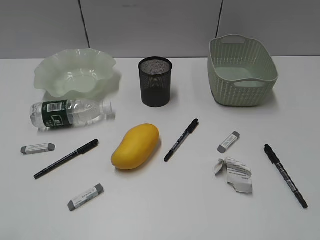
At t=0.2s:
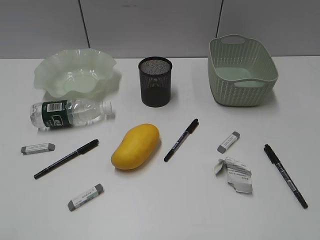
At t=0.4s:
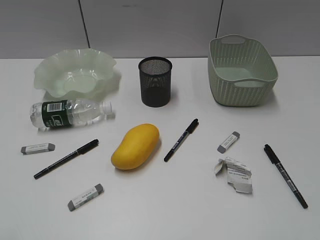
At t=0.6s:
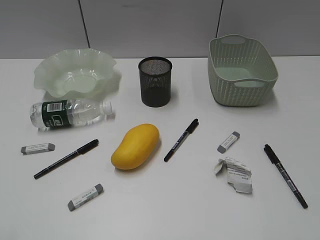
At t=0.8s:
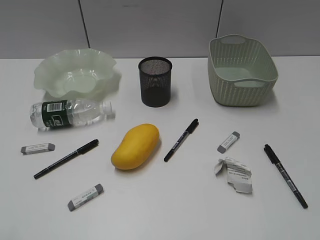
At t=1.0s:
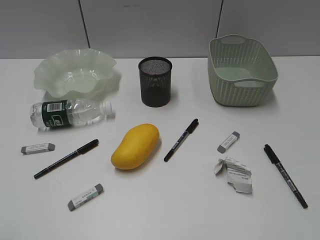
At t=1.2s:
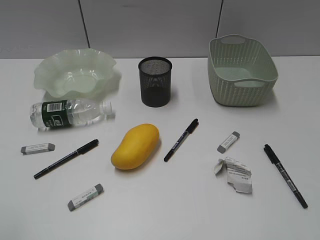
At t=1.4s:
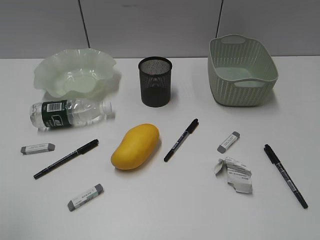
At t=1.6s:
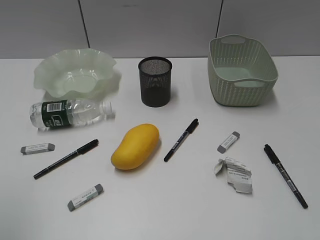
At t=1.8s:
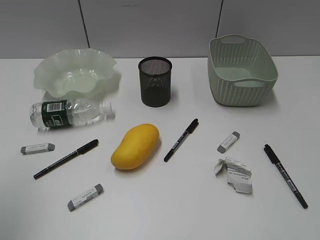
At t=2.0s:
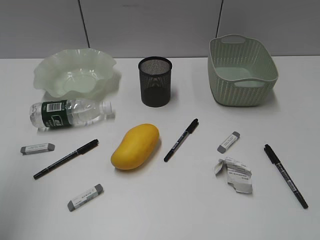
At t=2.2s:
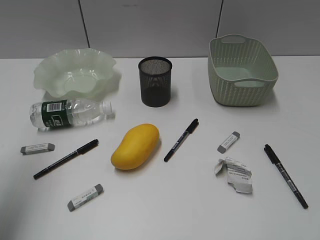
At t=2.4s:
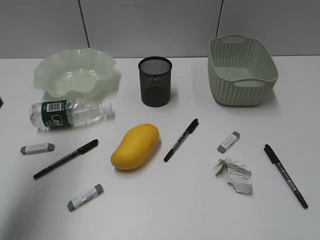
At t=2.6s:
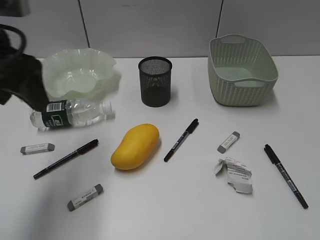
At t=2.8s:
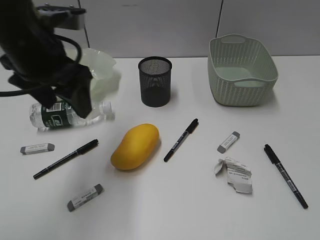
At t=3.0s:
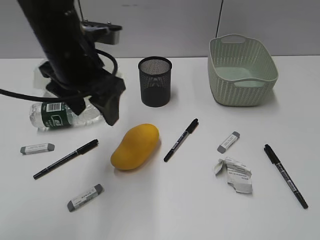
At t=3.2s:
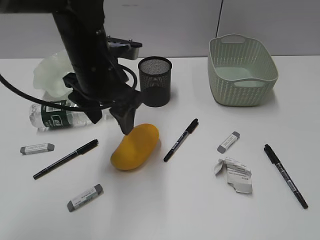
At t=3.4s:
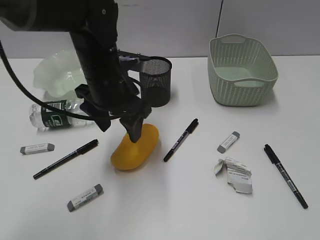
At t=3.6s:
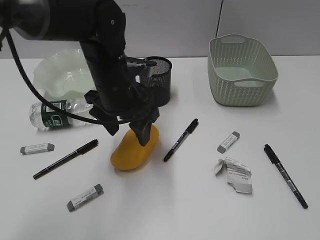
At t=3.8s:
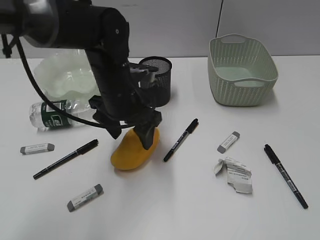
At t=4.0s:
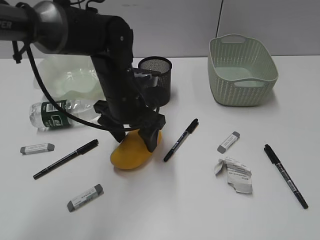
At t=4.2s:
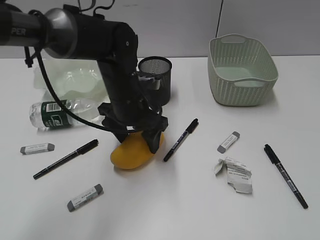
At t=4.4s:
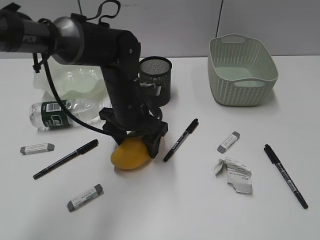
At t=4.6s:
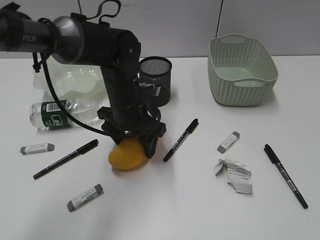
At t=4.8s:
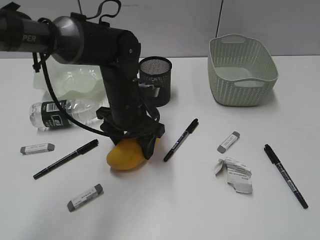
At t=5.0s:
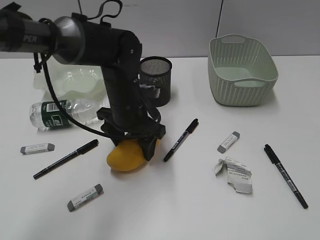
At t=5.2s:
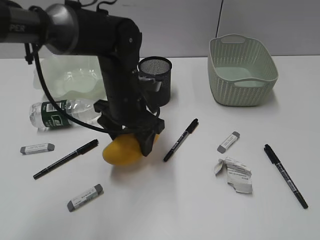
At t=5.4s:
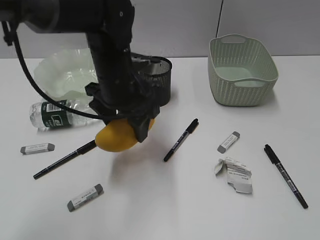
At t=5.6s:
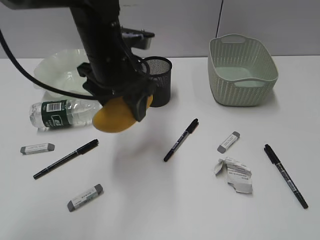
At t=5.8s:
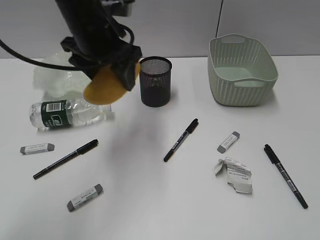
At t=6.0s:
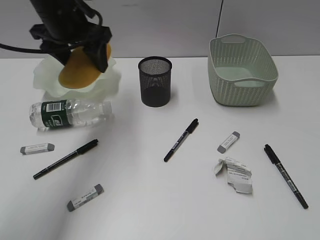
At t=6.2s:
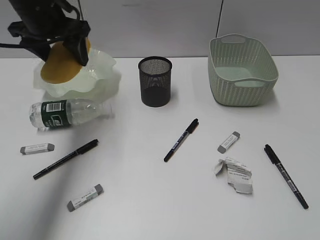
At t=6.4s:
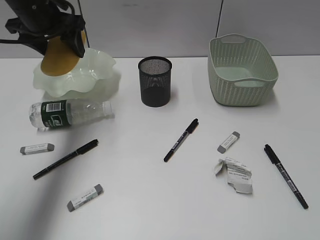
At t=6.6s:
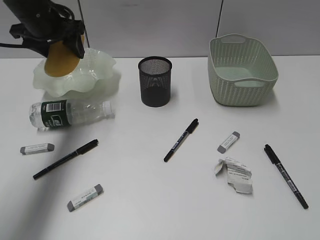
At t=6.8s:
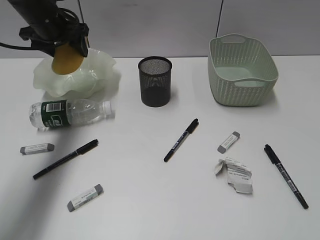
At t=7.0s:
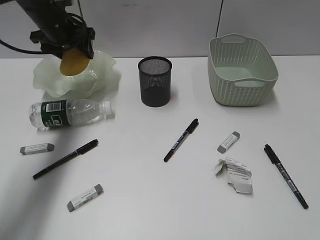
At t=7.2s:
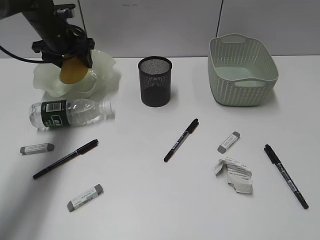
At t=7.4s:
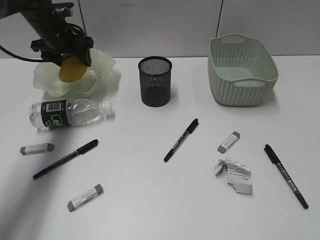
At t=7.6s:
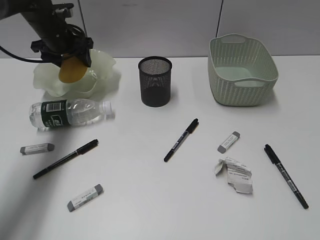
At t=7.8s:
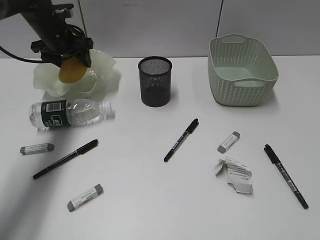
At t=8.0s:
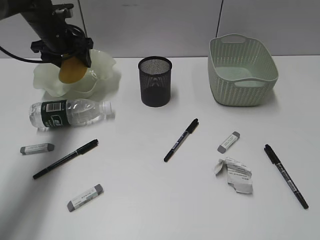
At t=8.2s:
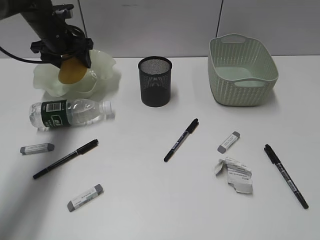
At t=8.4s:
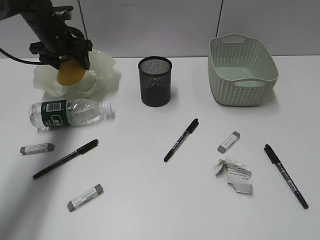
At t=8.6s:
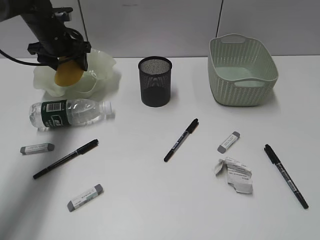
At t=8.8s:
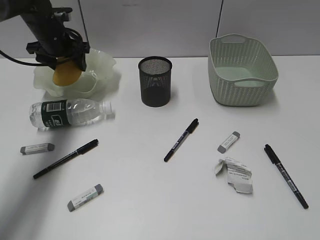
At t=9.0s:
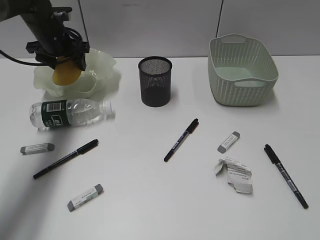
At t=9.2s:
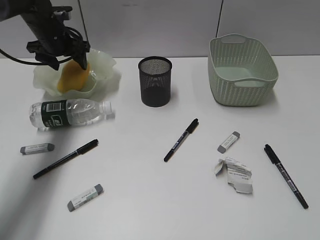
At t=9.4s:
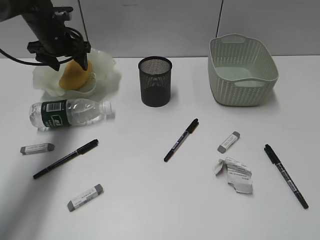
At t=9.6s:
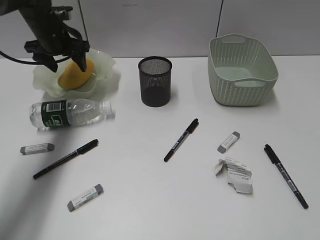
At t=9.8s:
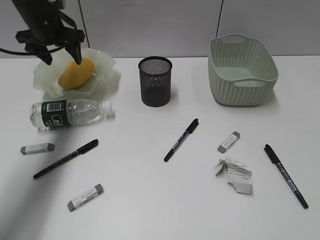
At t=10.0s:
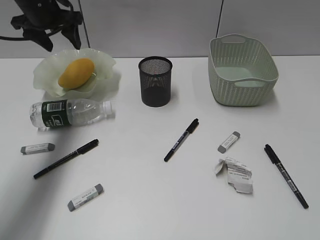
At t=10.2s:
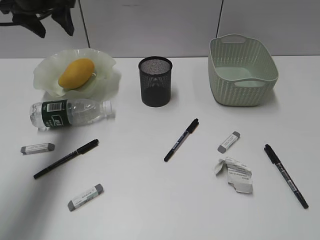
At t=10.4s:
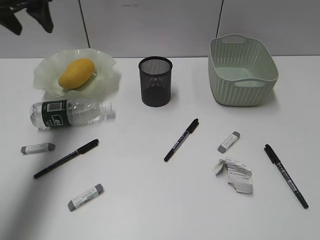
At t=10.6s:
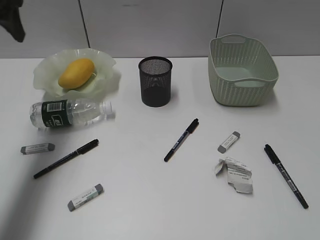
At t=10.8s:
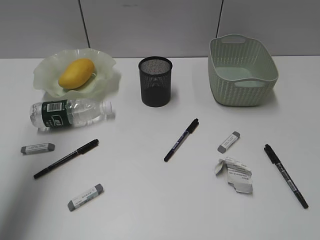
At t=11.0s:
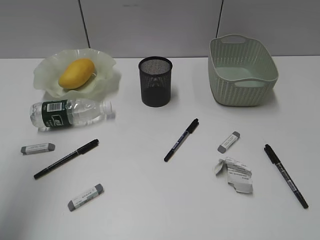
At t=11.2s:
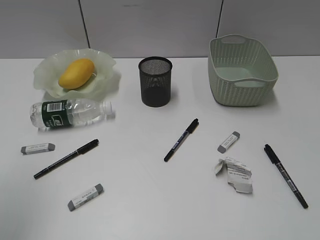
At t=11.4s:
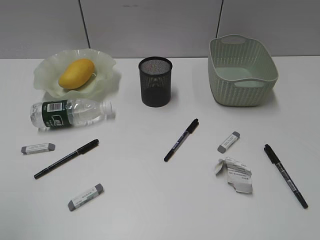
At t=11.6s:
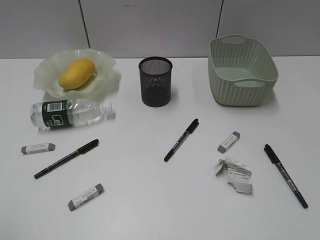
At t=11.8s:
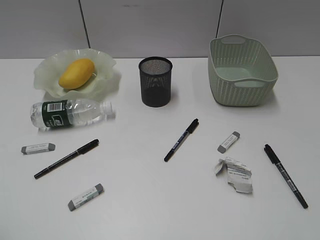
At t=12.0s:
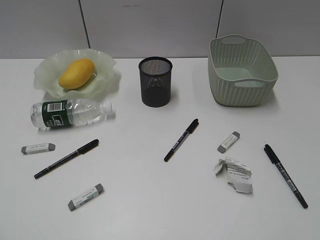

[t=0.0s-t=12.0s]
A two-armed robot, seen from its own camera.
Step, t=2.4s to t=4.8s: Grasp the mango with left gripper.
Step, t=5.0s to t=9.8s: Place the mango in the plate with left gripper.
t=1.6s to t=3.0s: The left gripper moves forward and to the right, roughly 30 cm.
t=3.0s to t=4.4s: The left gripper shifts some 15 cm downward and to the right.
t=4.4s to t=6.0s: The left gripper is displaced upward and to the left by about 15 cm.
t=6.0s to t=7.6s: The left gripper travels forward, to the left and downward by roughly 20 cm.
t=7.6s to t=9.0s: Neither gripper changes place.
t=9.0s to t=10.4s: The left gripper shifts some 15 cm upward and backward.
t=10.4s to t=12.0s: The left gripper heads backward, covering approximately 40 cm.

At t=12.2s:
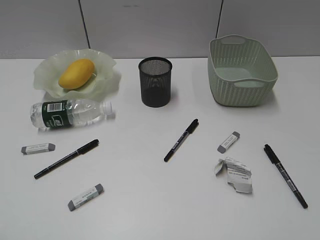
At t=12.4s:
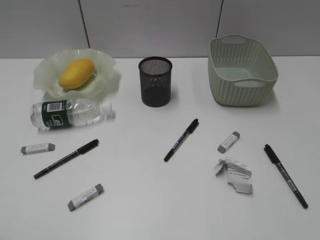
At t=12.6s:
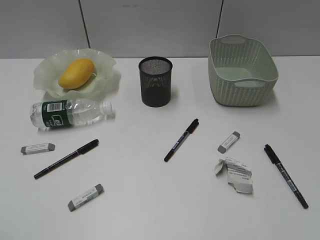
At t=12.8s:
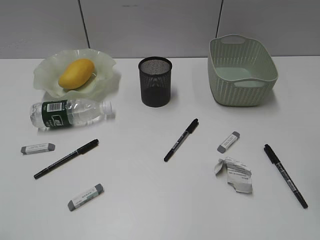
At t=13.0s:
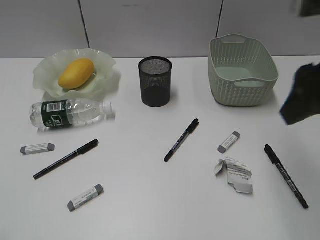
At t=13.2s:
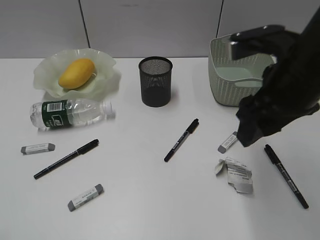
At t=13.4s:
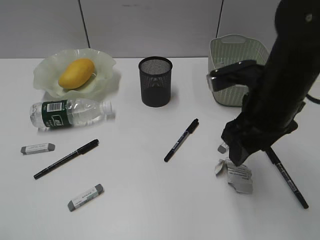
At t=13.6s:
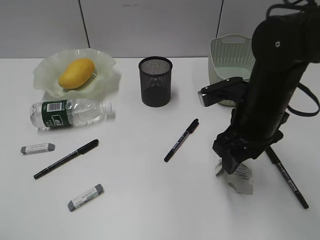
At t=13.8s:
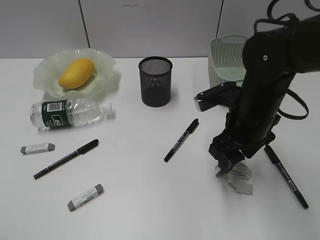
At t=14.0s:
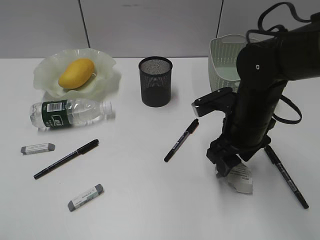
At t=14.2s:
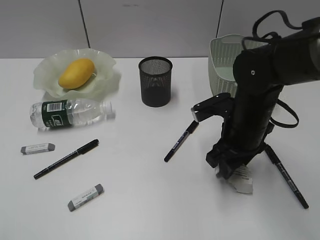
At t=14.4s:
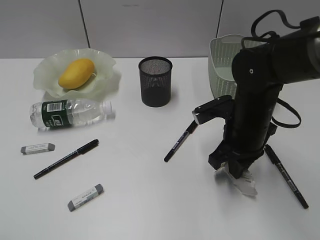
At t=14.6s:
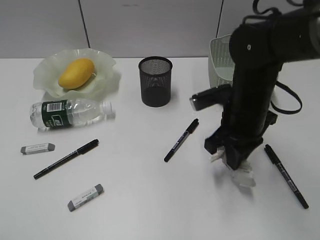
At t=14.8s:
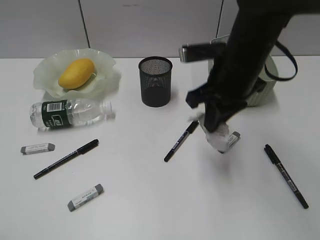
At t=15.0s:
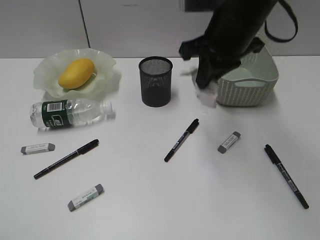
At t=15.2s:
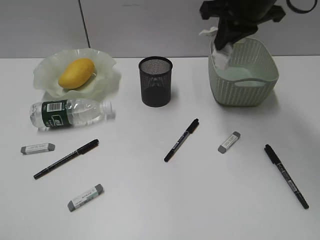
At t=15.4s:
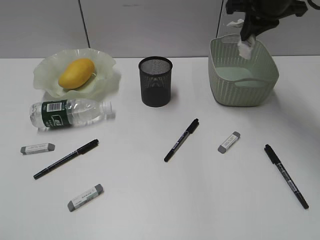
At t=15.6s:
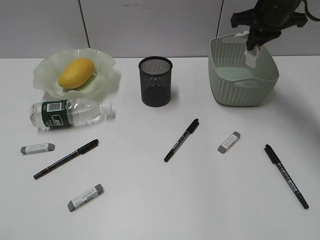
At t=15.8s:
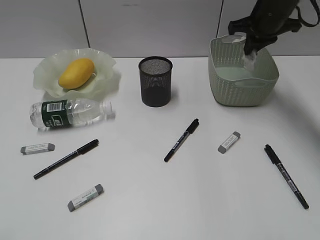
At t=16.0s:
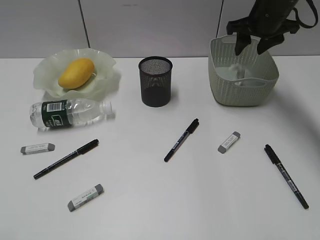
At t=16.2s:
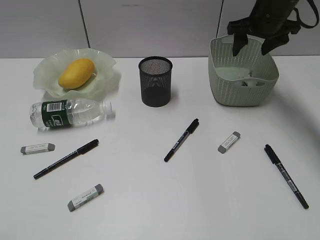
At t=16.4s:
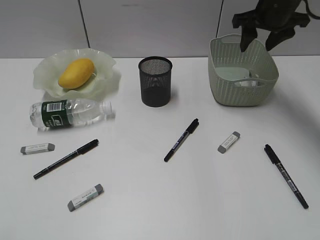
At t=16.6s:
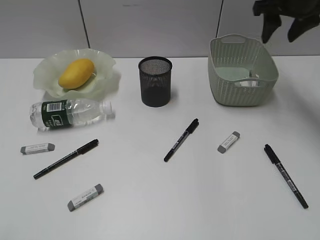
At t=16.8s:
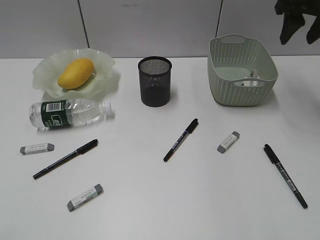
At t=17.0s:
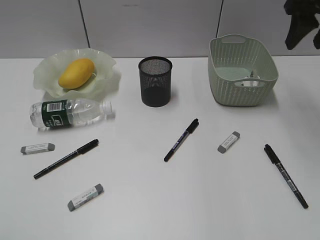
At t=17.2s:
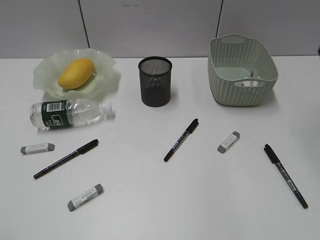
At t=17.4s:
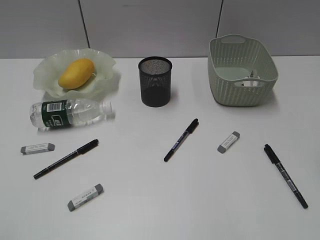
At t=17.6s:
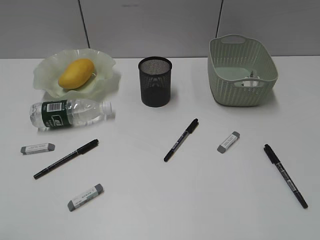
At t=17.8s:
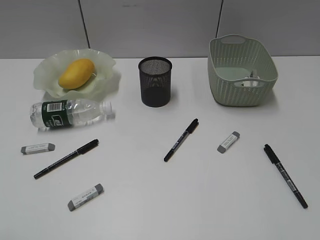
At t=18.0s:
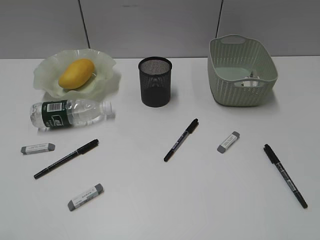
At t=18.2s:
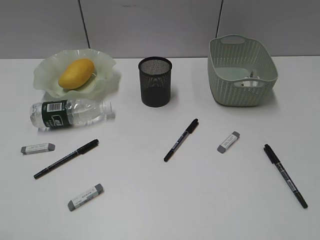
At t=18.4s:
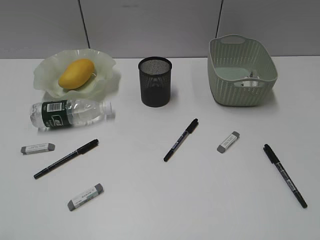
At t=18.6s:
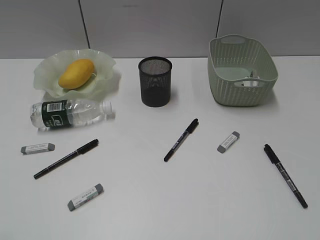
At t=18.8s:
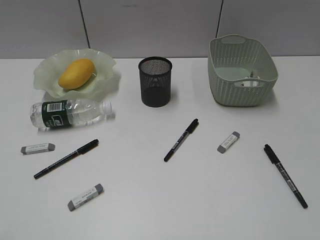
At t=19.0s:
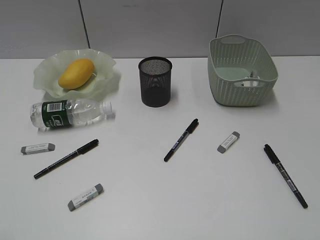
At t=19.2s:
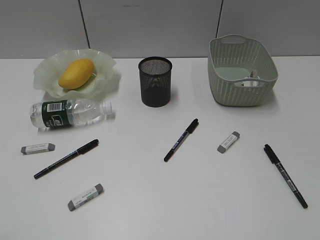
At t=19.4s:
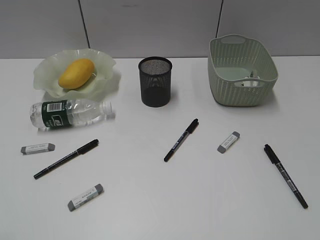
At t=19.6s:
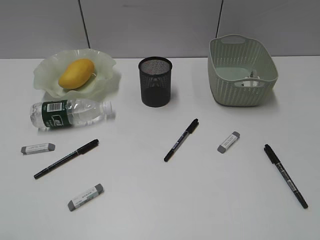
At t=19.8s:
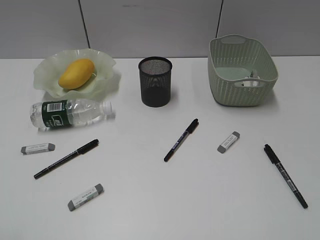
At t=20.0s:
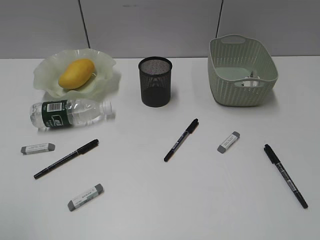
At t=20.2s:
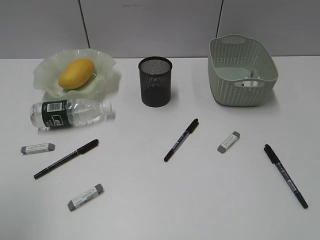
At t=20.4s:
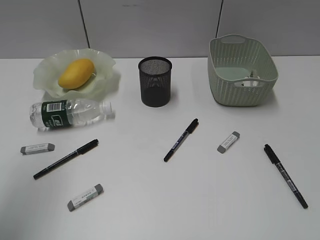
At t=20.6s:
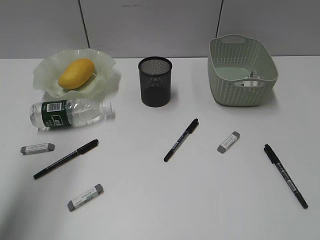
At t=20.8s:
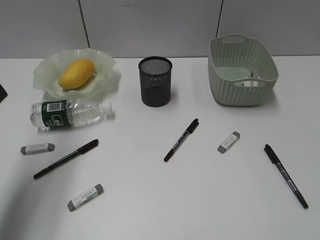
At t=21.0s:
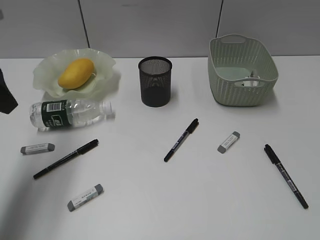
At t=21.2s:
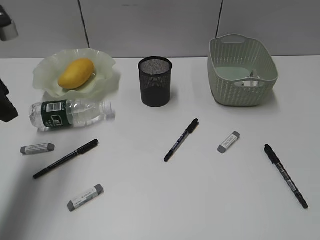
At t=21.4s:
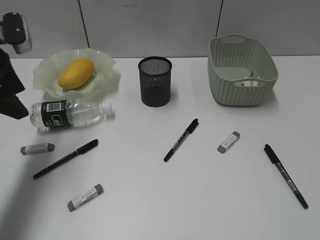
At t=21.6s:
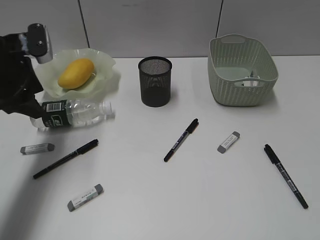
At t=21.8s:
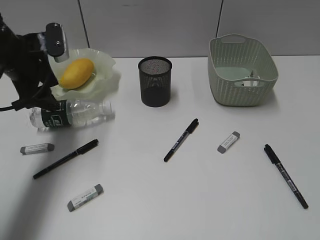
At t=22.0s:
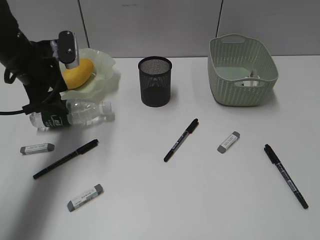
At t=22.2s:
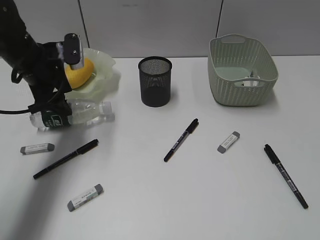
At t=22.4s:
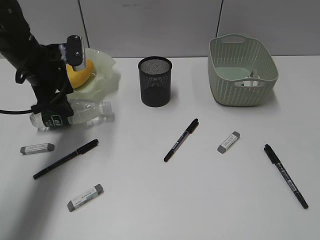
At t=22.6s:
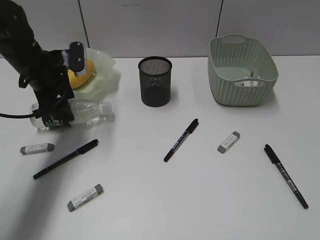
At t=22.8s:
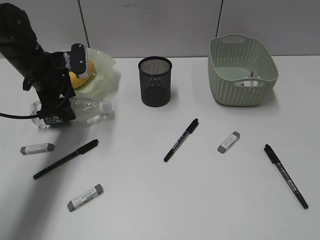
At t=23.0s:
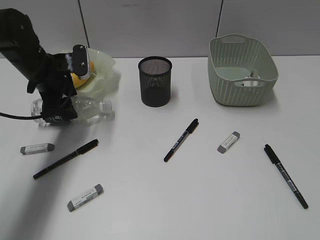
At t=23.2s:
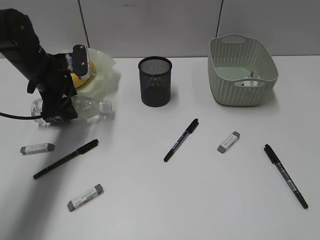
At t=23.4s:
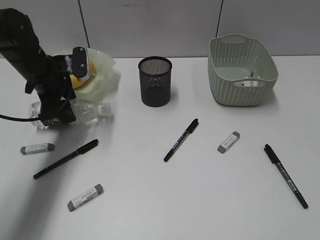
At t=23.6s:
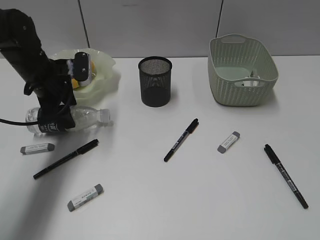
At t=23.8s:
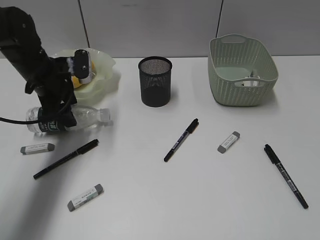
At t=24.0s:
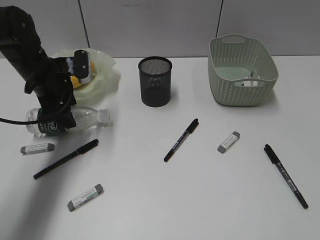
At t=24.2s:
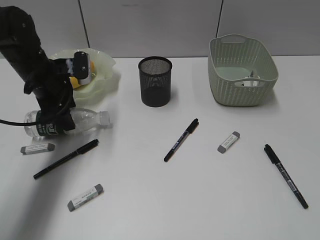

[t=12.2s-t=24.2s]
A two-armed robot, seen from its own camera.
Step, t=12.2s to t=14.4s: Grasp the waste paper with right gripper.
Step, t=14.6s to t=16.2s: Place the waste paper in the basket with right gripper.
t=12.2s to t=13.8s: The right gripper shifts about 30 cm forward, to the left and downward.
t=13.8s to t=15.2s: The right gripper heads upward and forward, covering roughly 15 cm, and closes its fingers.
t=15.2s to t=16.6s: The right gripper moves to the right and forward, some 15 cm, and opens up.
t=16.6s to t=18.2s: The right gripper goes some 50 cm backward.
t=19.8s to t=21.2s: The left gripper travels forward by approximately 30 cm.
t=21.2s to t=22.6s: The left gripper moves forward, downward and to the right, some 15 cm.
t=22.6s to t=24.2s: The grippers stay close to where they were, moving slightly.
